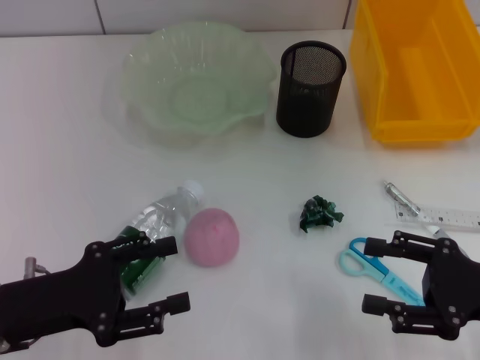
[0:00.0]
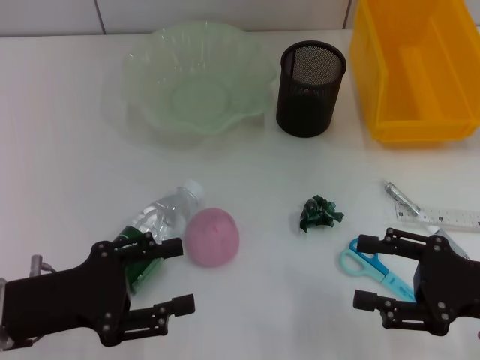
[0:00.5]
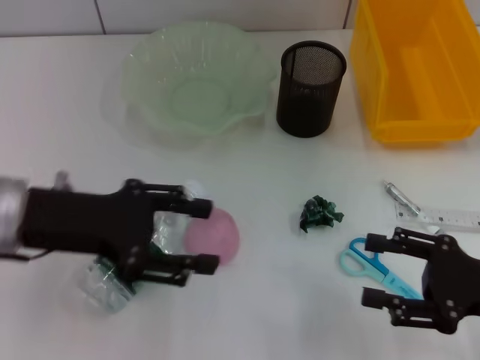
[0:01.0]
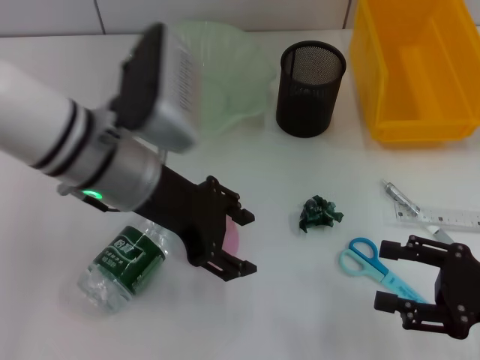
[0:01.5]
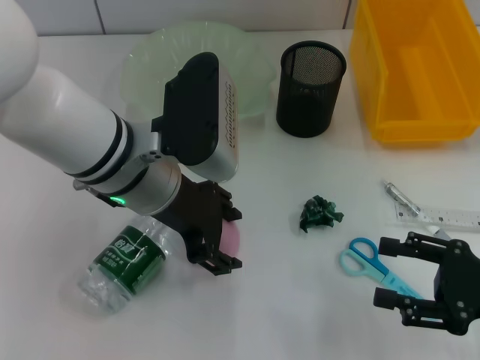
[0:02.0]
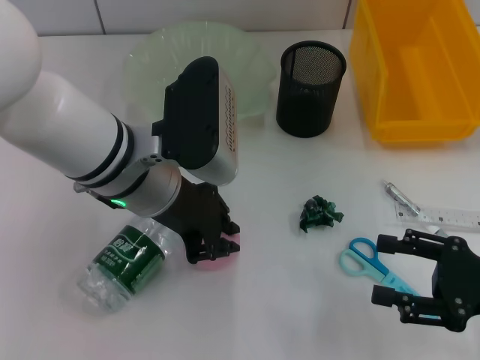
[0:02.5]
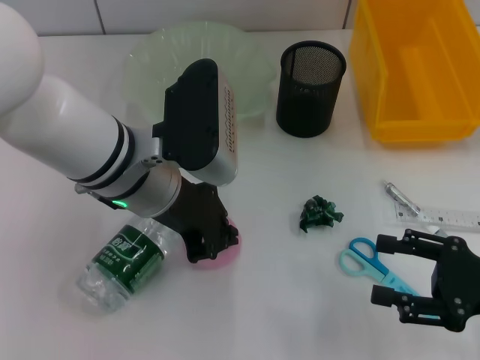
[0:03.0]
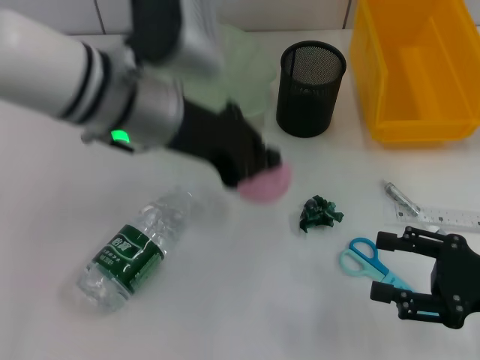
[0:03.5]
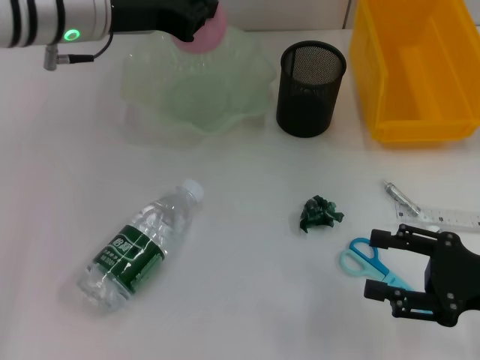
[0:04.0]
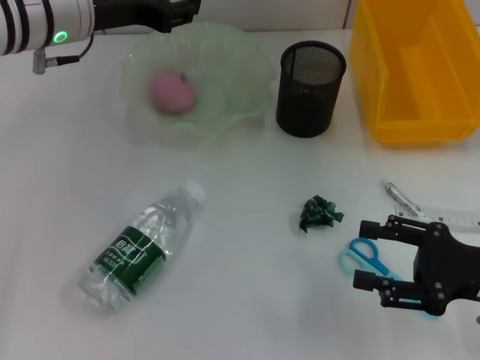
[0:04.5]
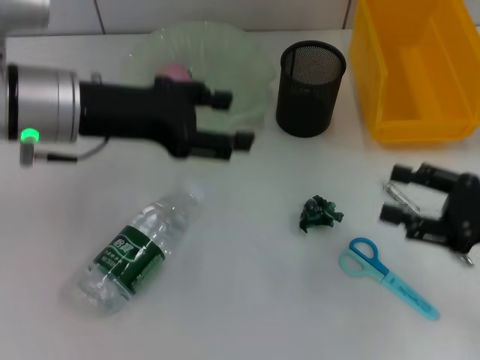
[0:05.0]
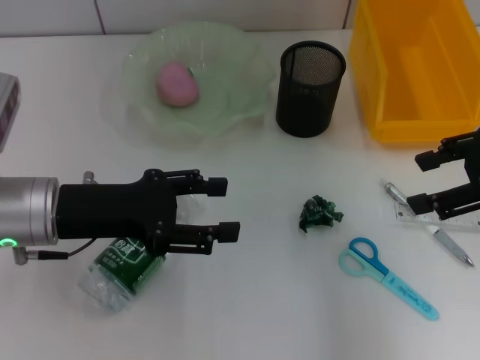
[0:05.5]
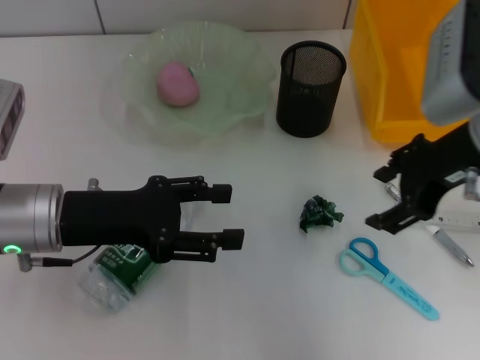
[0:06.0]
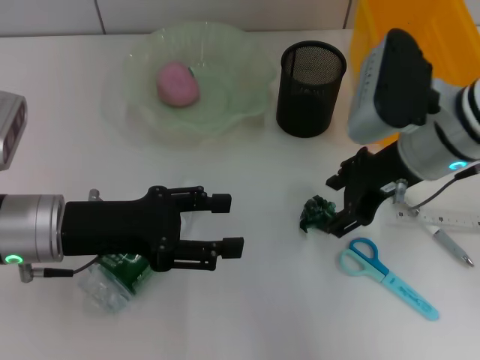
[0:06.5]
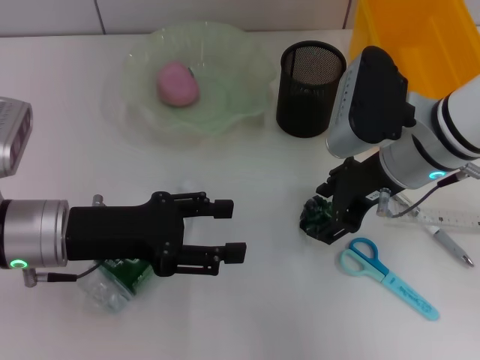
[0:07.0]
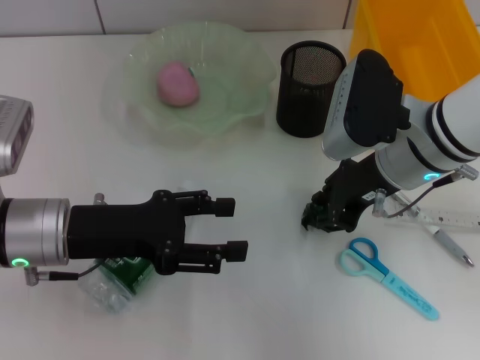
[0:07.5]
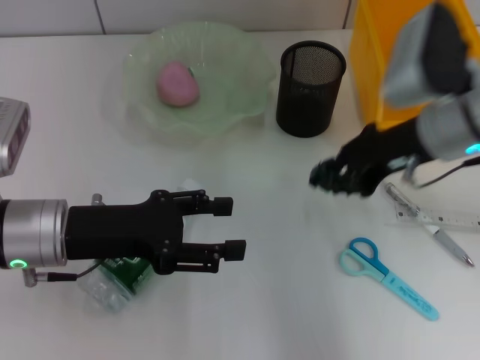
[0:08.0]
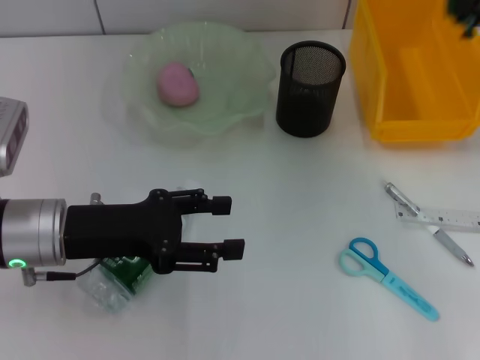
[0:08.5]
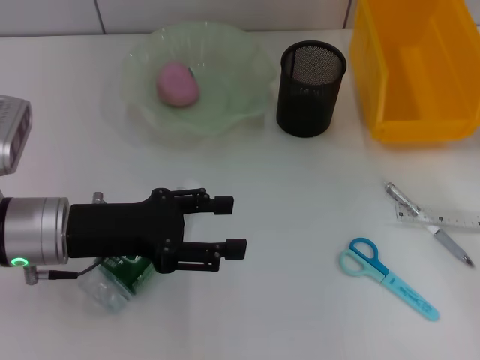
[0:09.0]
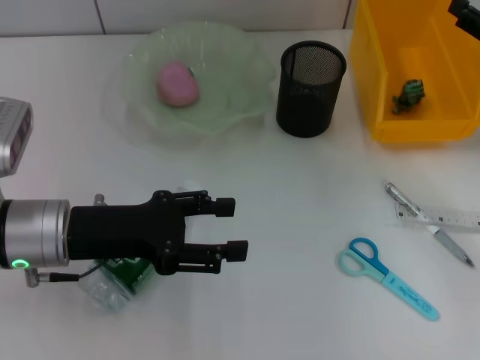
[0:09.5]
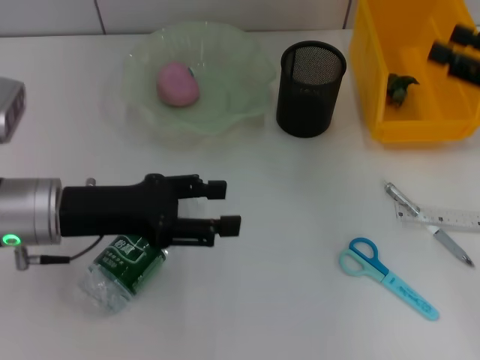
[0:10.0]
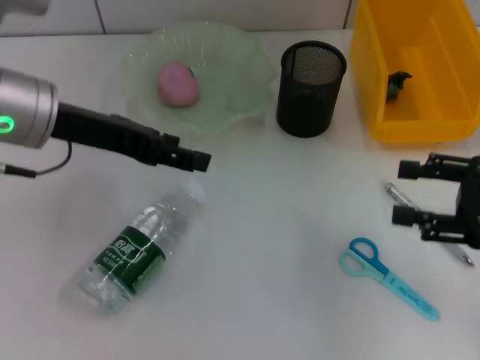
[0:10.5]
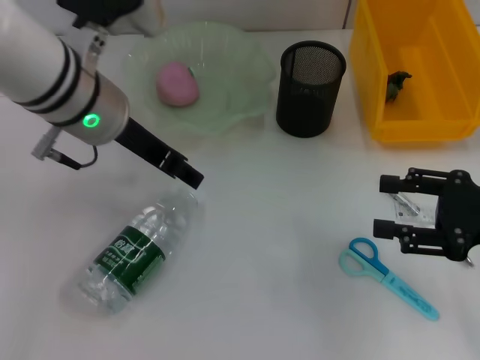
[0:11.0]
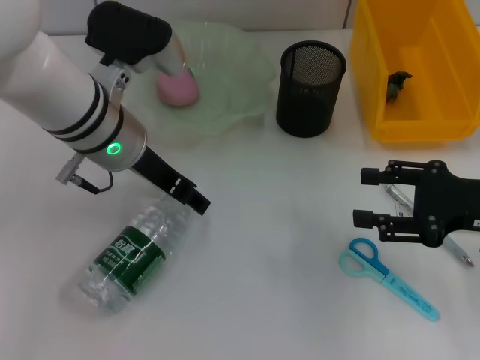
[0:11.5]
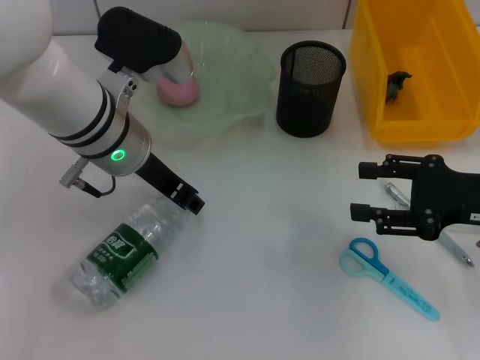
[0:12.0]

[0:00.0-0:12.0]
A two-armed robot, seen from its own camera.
Step, 0:00.0 to 0:03.0: Grab the peach with the left hand.
Step, 0:03.5 to 0:04.5: Place the peach into the fruit bowl with the left hand.
Step, 0:05.0 to 0:07.5: Grab the plastic with the right hand.
Step, 0:08.0 to 0:09.0: Place the plastic into the trash can with the right hand.
0:00.0 to 0:02.0: The left gripper goes approximately 20 cm to the right, forward and upward.
0:02.0 to 0:04.0: The left gripper heads forward, to the left and upward, covering roughly 15 cm, and closes up.
0:04.0 to 0:06.0: The right gripper moves upward, forward and to the left, some 20 cm. The left gripper travels backward and downward by approximately 15 cm, and opens its fingers.
0:06.0 to 0:08.0: The right gripper closes.
0:08.0 to 0:10.0: The right gripper is displaced to the right by about 15 cm, and opens its fingers.
0:10.0 to 0:12.0: The left gripper moves to the right and forward, some 10 cm; the right gripper ends up approximately 10 cm from where it was.

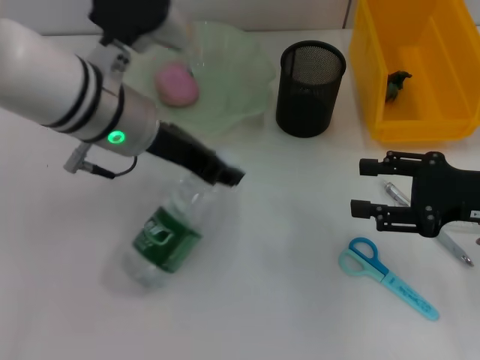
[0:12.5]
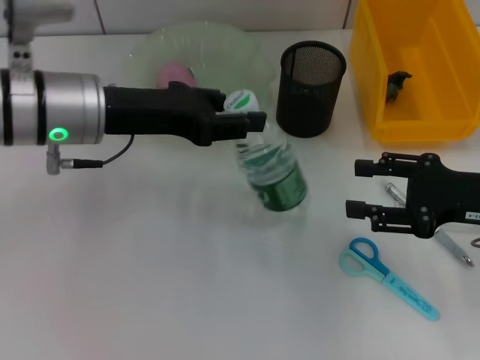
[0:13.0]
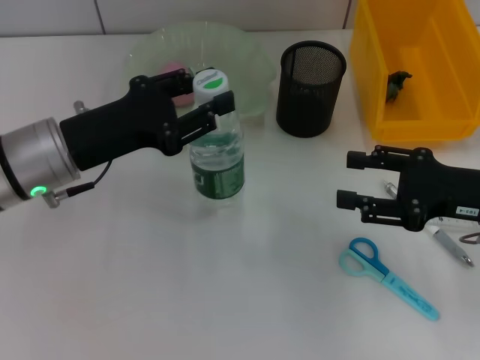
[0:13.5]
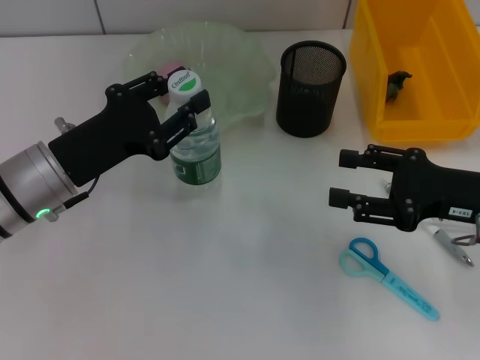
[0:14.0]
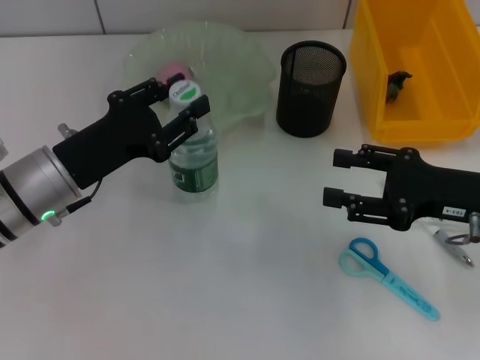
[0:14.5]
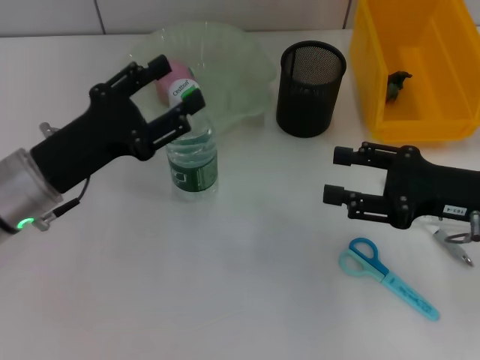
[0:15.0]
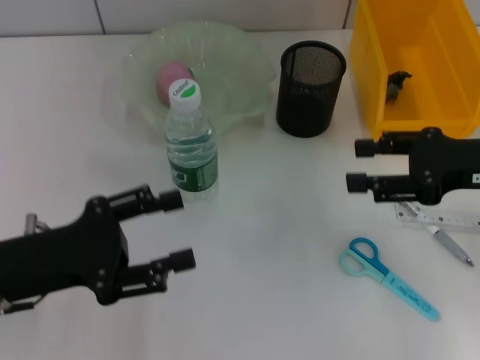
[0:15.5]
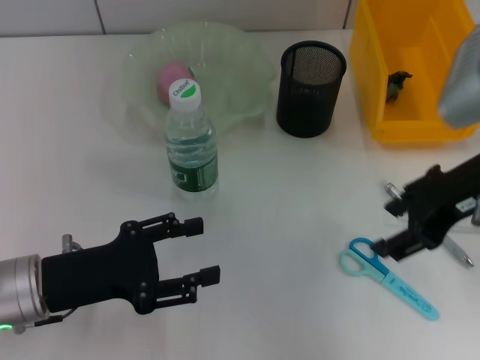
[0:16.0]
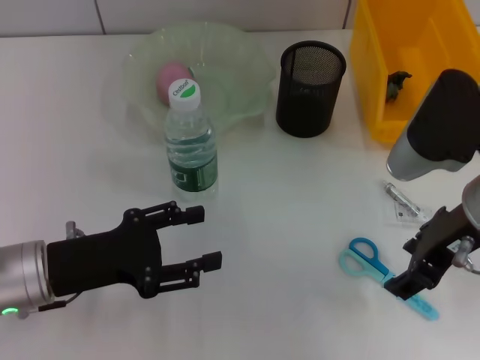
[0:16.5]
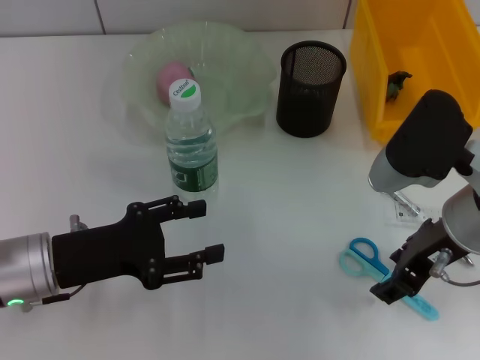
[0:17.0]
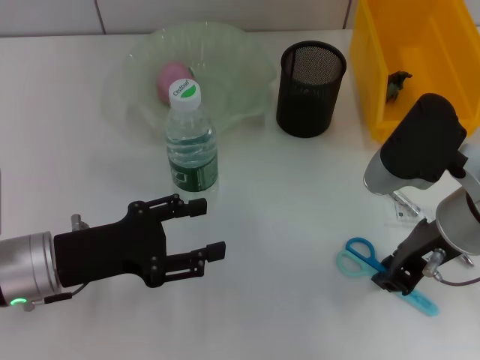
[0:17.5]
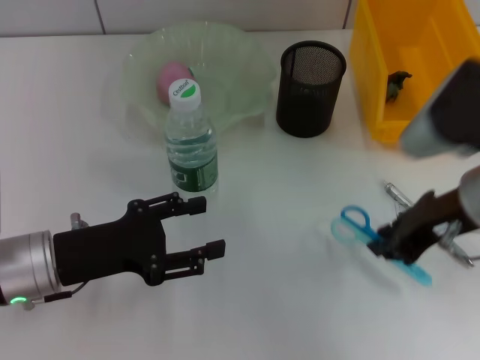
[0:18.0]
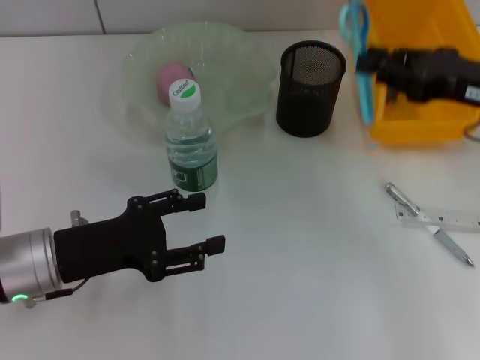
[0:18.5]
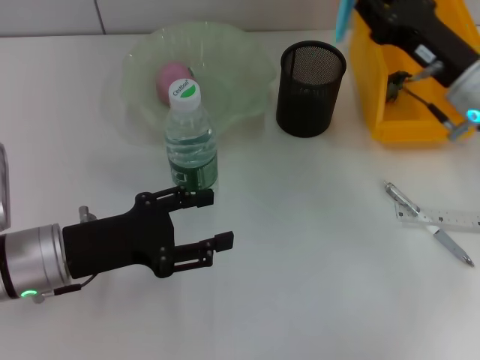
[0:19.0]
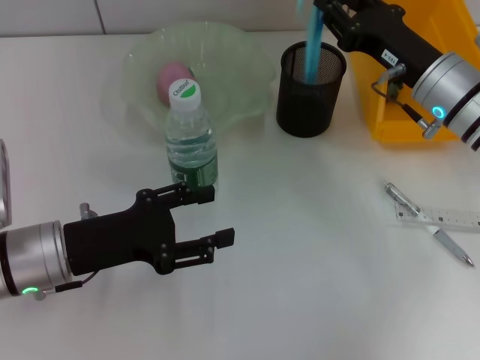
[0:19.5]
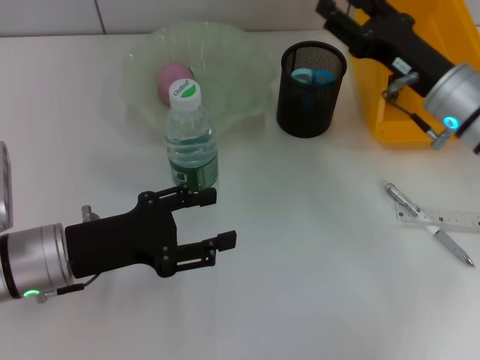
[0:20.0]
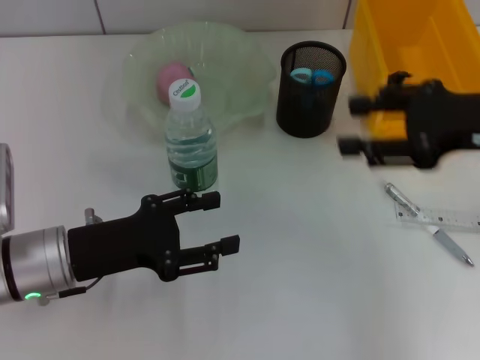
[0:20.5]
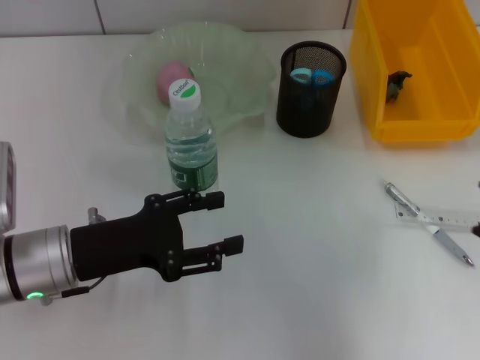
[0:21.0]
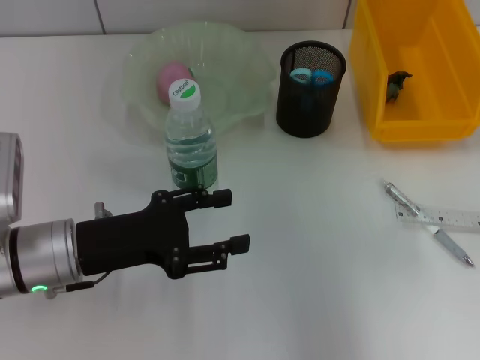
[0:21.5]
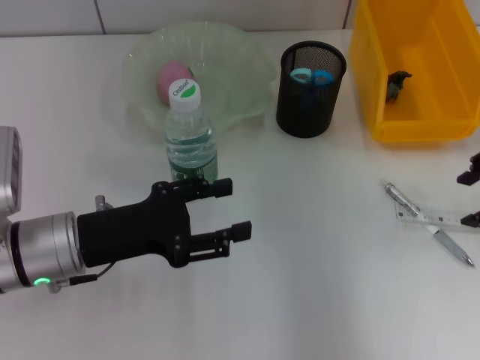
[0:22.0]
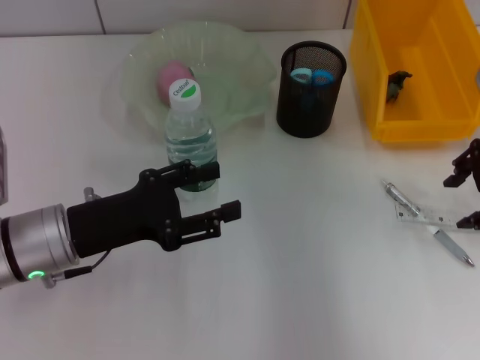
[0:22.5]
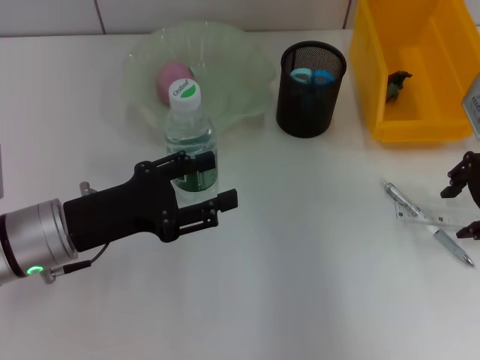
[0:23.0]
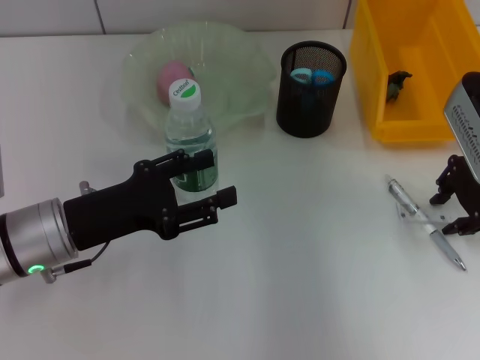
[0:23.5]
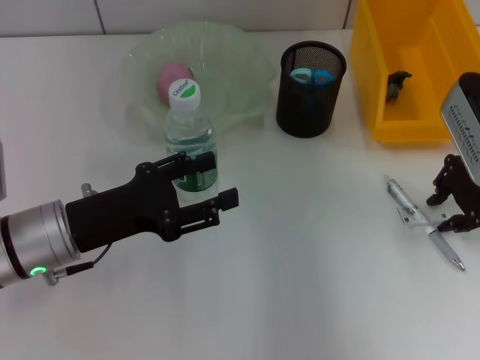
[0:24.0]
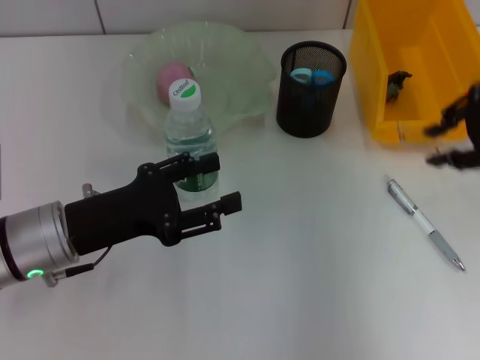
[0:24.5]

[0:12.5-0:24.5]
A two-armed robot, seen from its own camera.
Step, 0:12.5 to 0:14.5: Place the water bottle on the table with the left hand.
Step, 0:15.0 to 0:17.5: Grab the blue scissors with the right hand.
Step, 0:18.0 to 0:19.5: Place the blue scissors into the pen holder with the right hand.
Step, 0:20.0 to 0:23.5: Grab the ruler with the right hand.
0:12.5 to 0:14.5: The left gripper heads to the left, downward and backward, covering approximately 15 cm.
0:14.5 to 0:16.5: The left gripper moves backward, roughly 5 cm, and opens; the right gripper travels upward and to the left by about 10 cm.
0:16.5 to 0:18.5: The right gripper heads to the right, covering approximately 10 cm, and closes its fingers.
0:18.5 to 0:20.5: The right gripper goes downward and returns, some 5 cm each way, and opens up.
0:20.5 to 0:22.5: The right gripper goes roughly 5 cm forward.
0:22.5 to 0:24.5: The right gripper changes place by about 5 cm, and closes its fingers.

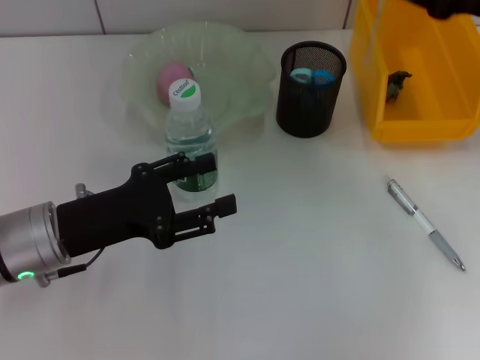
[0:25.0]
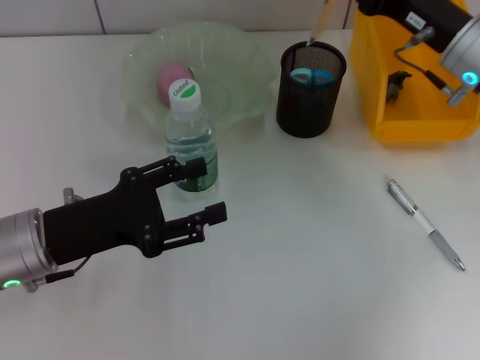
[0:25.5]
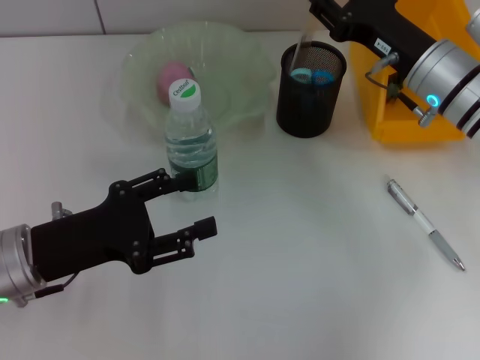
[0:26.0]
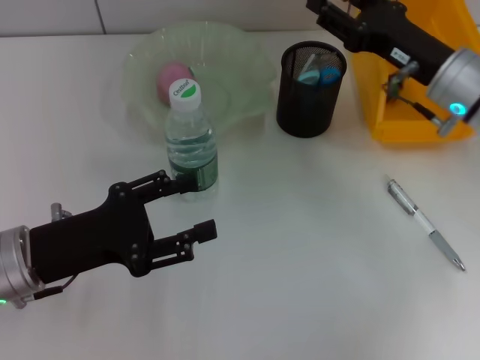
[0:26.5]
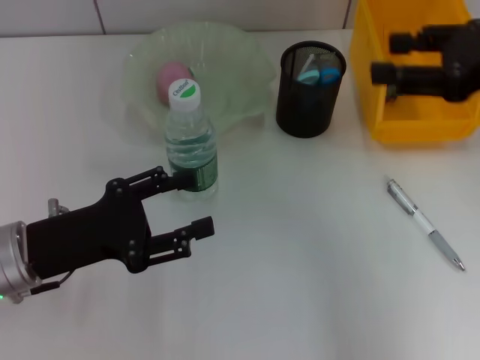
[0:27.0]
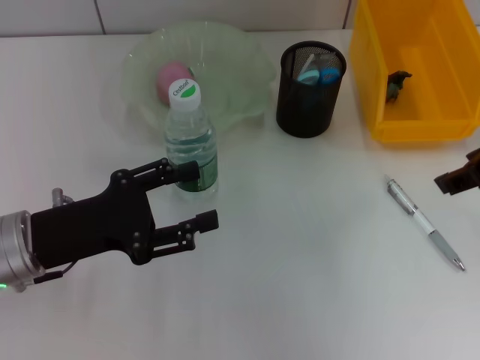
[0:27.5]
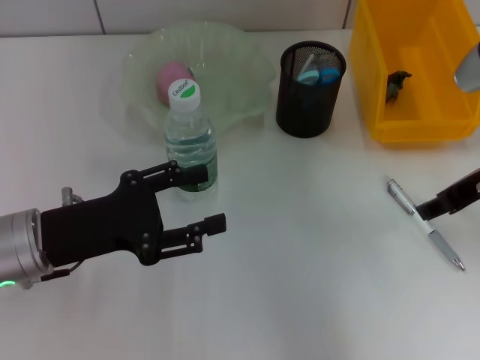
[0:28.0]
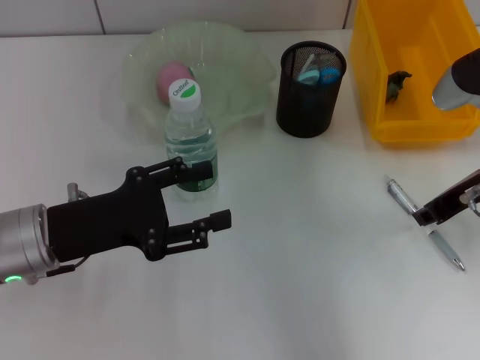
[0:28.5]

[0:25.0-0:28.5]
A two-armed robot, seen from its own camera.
0:25.0 to 0:27.0: The right gripper goes about 5 cm backward.
0:27.0 to 0:28.5: The right gripper moves downward, approximately 10 cm.
